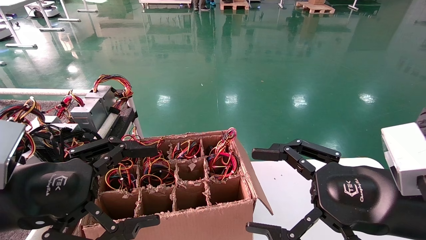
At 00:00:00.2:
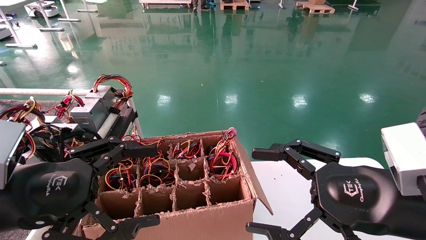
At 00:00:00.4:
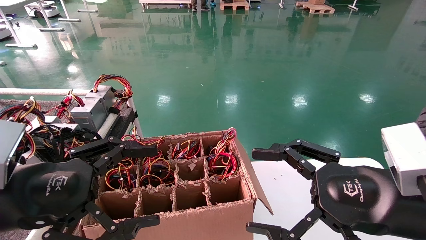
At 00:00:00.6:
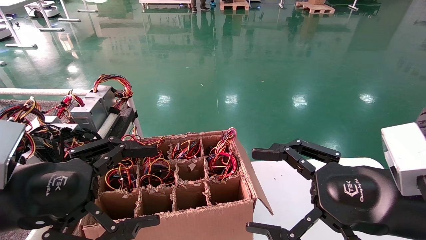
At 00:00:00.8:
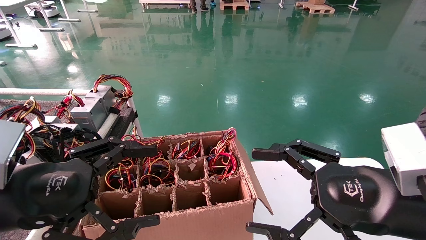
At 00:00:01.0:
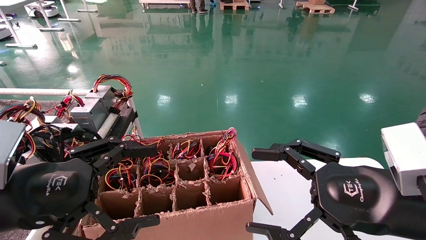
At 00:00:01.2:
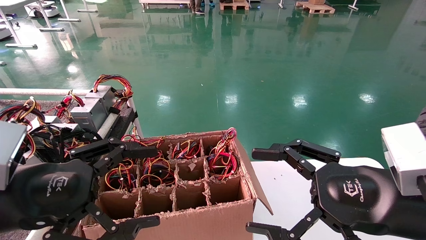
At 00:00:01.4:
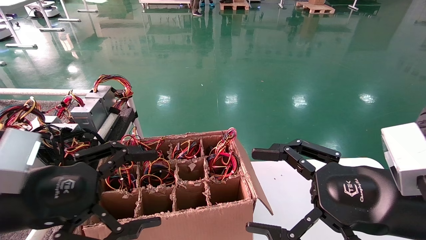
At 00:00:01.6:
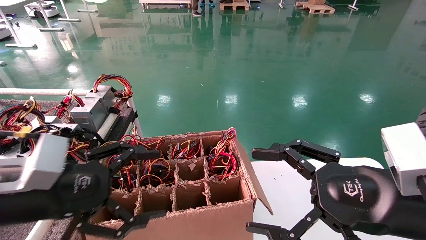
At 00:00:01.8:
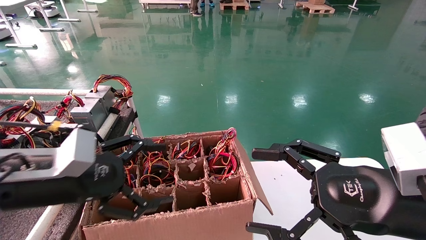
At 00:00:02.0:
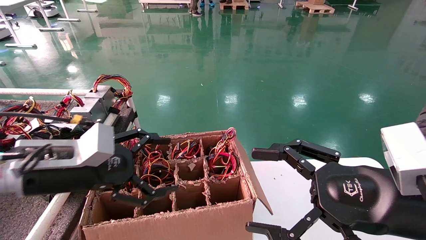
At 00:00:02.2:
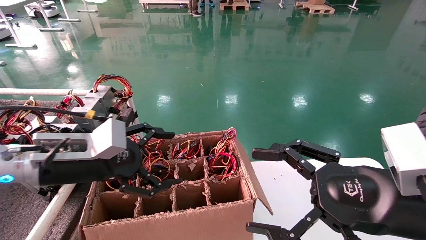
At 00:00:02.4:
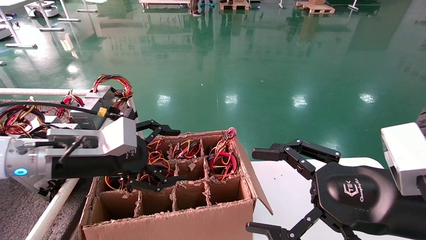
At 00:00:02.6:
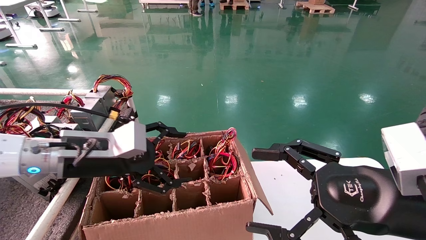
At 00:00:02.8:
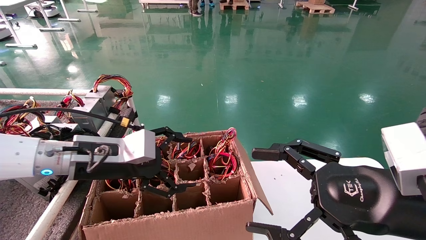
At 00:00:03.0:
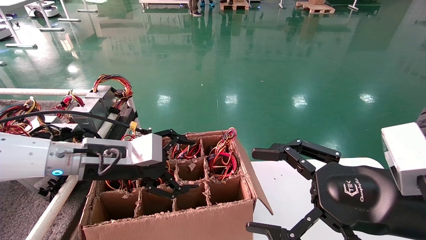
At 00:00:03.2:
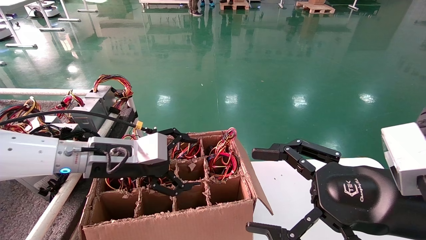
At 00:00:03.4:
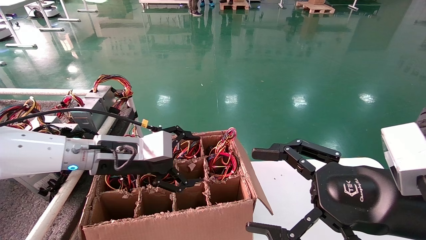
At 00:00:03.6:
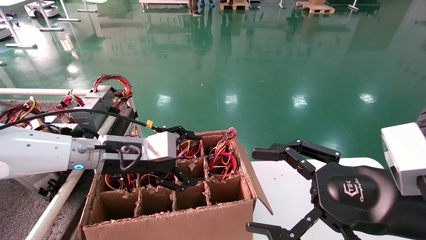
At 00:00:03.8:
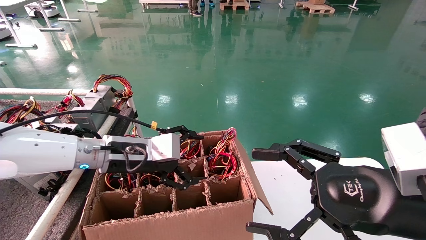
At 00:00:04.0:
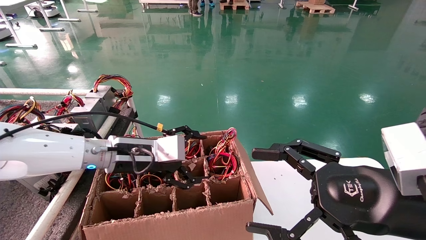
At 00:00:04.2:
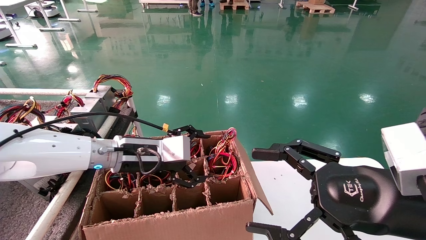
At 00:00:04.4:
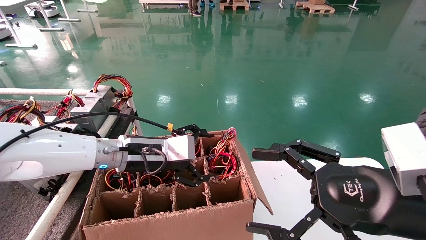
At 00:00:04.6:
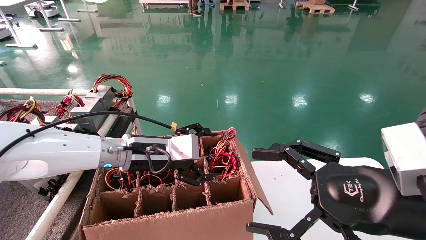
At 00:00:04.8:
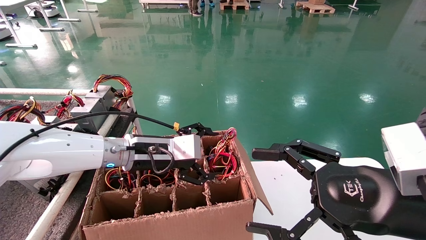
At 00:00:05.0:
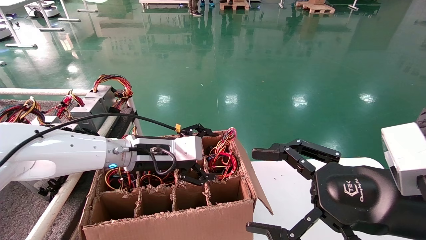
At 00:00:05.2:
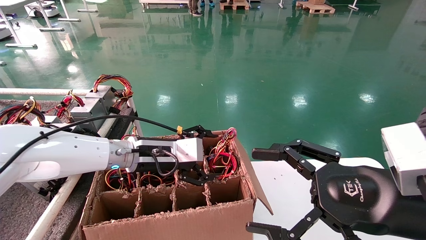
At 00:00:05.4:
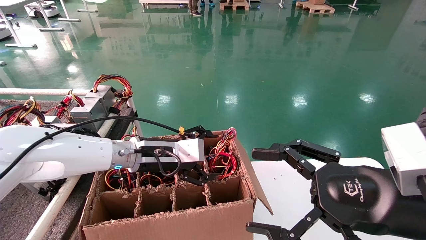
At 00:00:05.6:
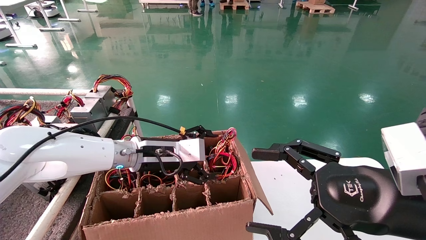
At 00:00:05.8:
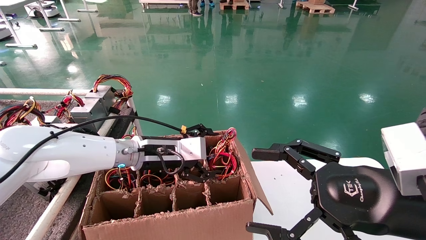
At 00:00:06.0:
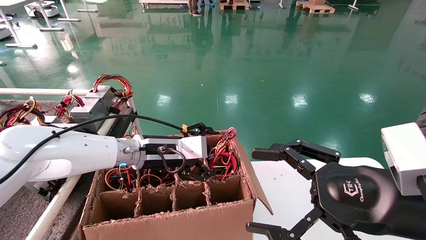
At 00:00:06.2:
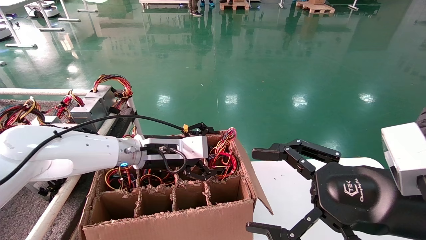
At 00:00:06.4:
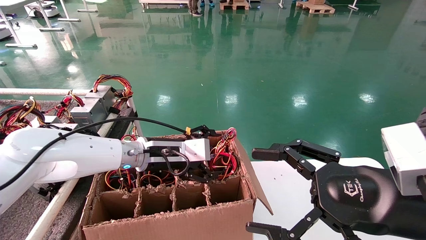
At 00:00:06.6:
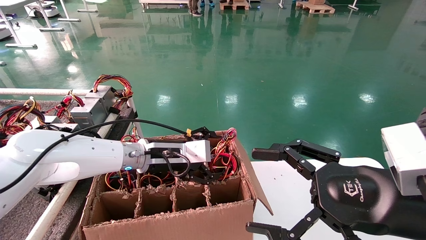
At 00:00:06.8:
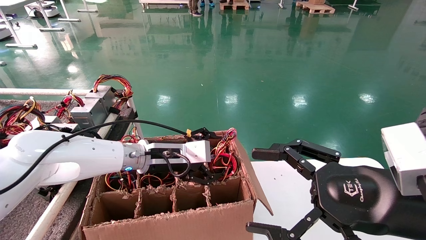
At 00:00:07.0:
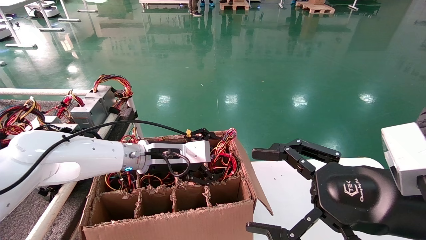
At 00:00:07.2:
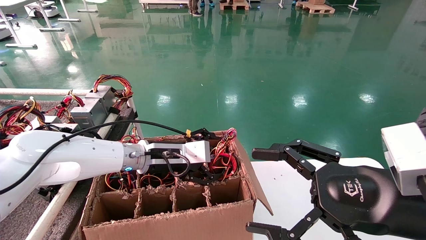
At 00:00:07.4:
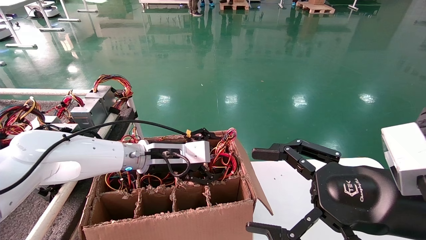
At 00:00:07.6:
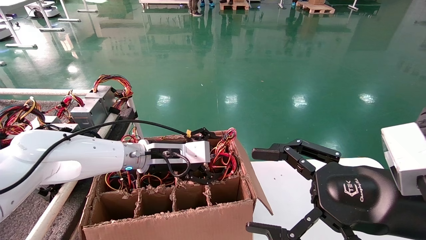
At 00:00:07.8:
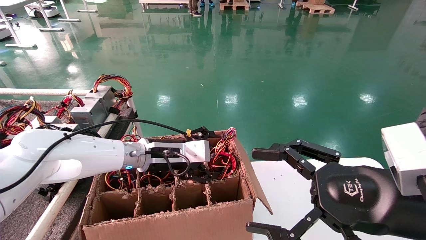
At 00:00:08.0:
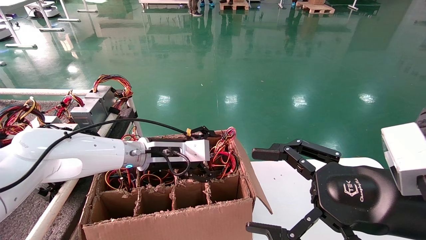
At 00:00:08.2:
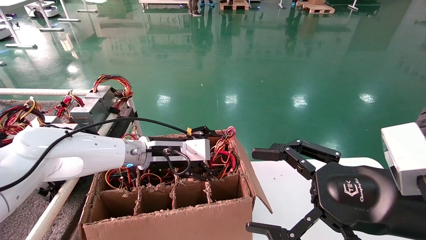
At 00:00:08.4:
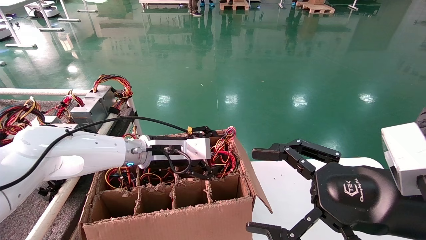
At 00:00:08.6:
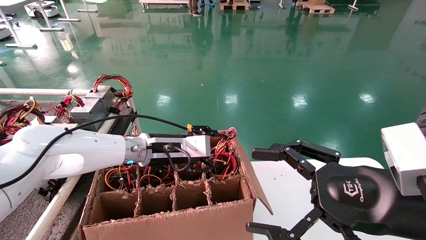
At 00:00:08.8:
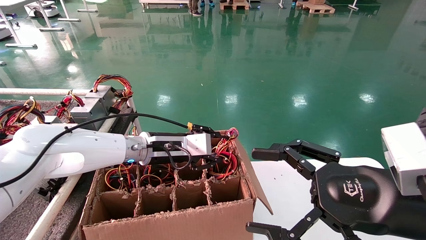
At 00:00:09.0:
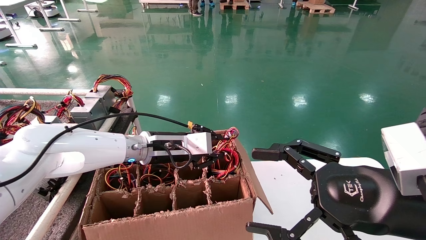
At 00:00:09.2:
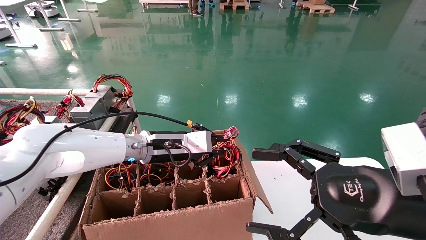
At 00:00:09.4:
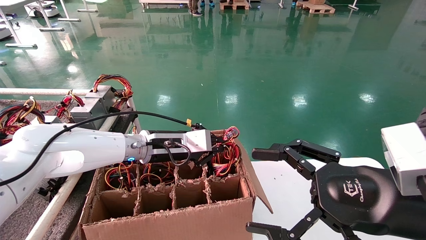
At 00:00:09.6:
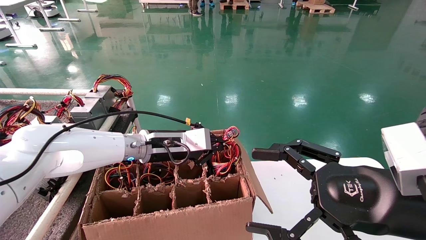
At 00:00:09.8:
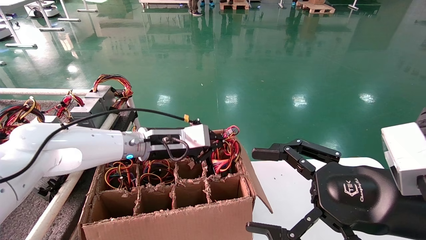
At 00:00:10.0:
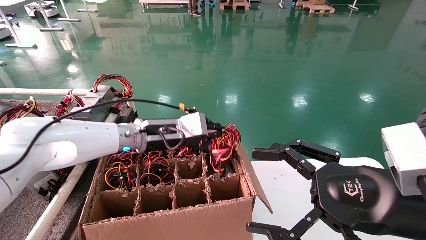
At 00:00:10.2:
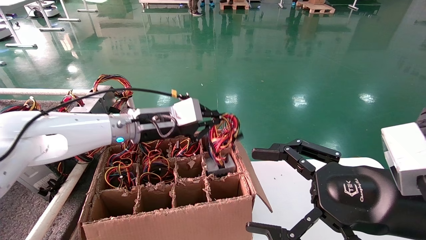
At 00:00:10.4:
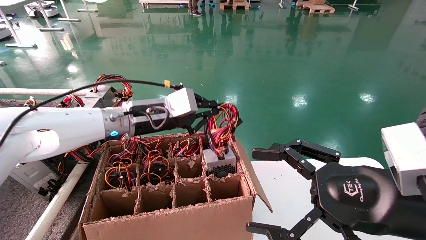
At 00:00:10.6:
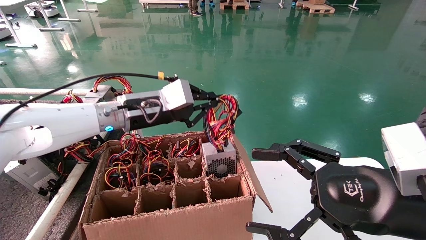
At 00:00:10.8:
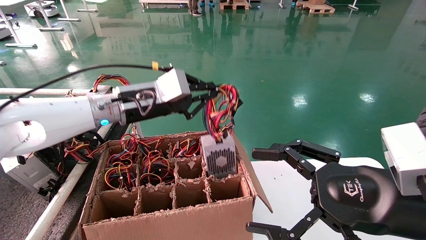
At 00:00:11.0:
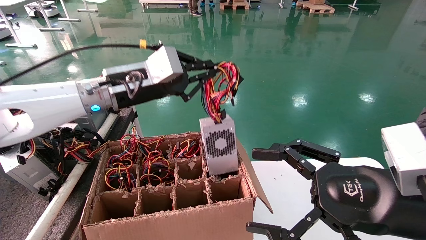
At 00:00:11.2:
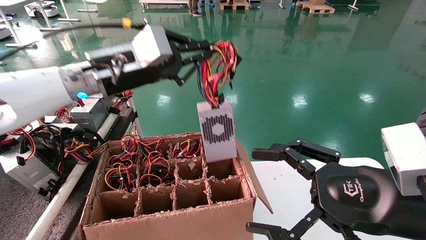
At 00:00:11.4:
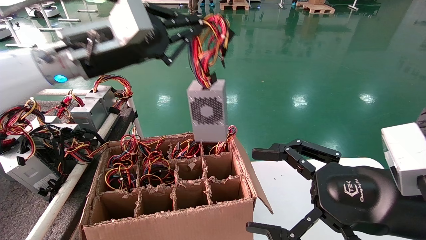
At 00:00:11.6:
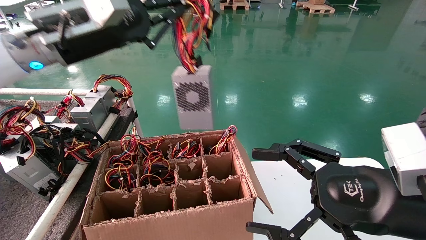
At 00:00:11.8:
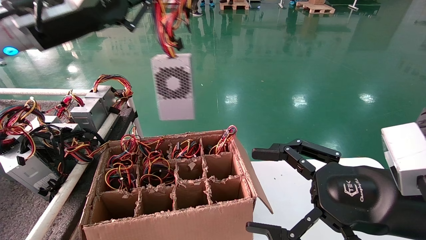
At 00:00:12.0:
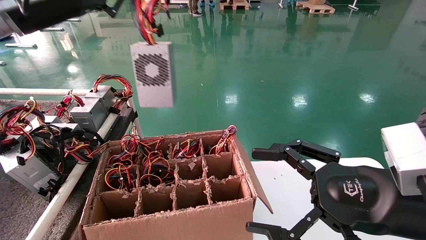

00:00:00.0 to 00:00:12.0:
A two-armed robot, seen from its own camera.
Step, 00:00:01.8 to 00:00:09.4: Grab and lift the power supply from the large box.
00:00:00.0 to 00:00:01.6: The grippers stay close to where they were, moving slightly.
00:00:01.6 to 00:00:03.0: The left gripper moves forward and to the right, roughly 15 cm.
00:00:03.0 to 00:00:04.4: The left gripper shifts some 5 cm to the right.
00:00:04.4 to 00:00:07.6: The grippers make only small movements.
00:00:07.6 to 00:00:09.0: The left gripper closes its fingers.
00:00:09.0 to 00:00:10.4: The left gripper is displaced upward by some 5 cm, and closes its fingers.
00:00:10.4 to 00:00:12.0: The left gripper goes approximately 25 cm upward, to the left and backward.

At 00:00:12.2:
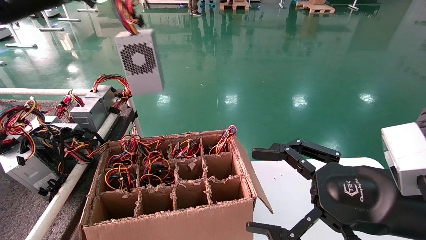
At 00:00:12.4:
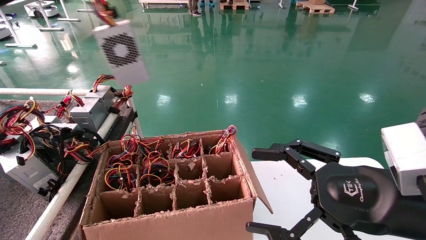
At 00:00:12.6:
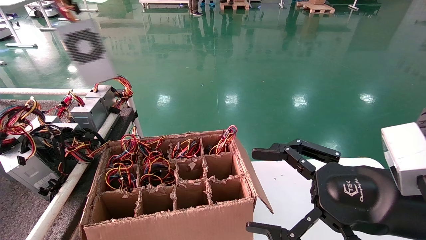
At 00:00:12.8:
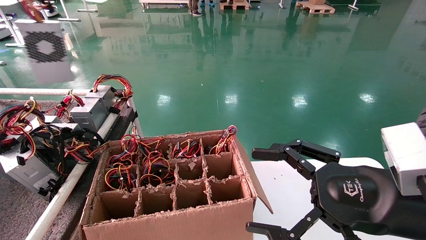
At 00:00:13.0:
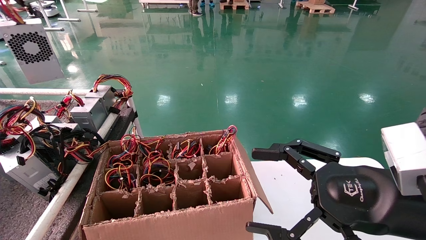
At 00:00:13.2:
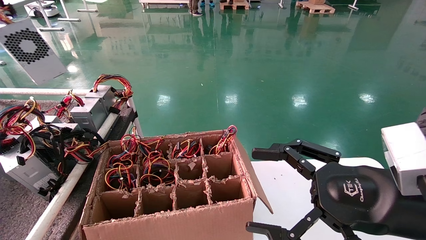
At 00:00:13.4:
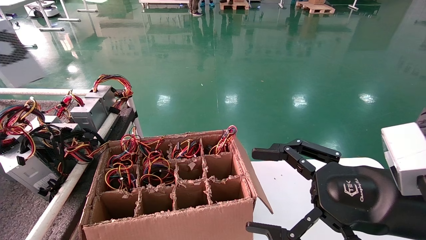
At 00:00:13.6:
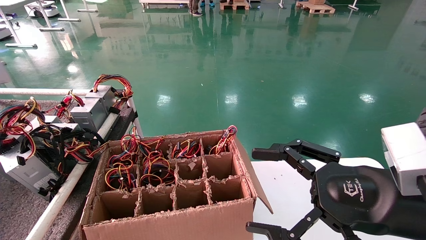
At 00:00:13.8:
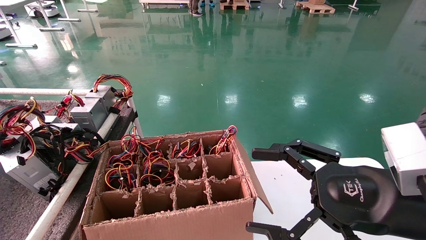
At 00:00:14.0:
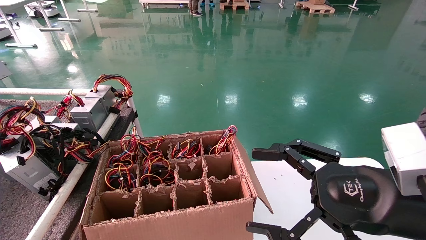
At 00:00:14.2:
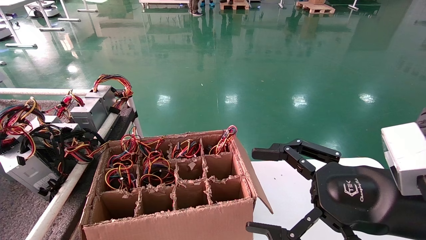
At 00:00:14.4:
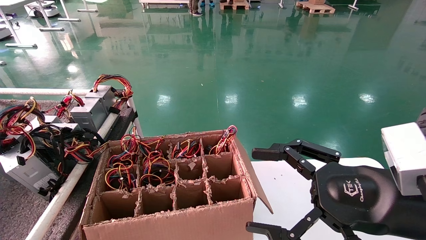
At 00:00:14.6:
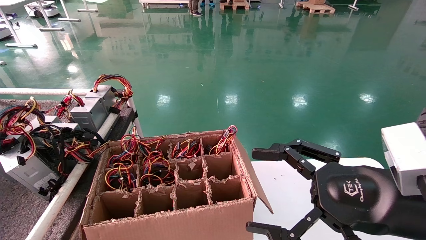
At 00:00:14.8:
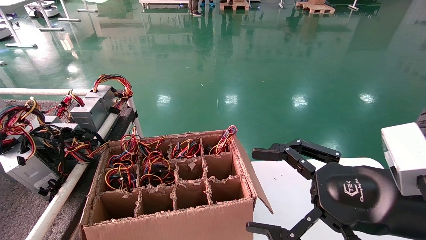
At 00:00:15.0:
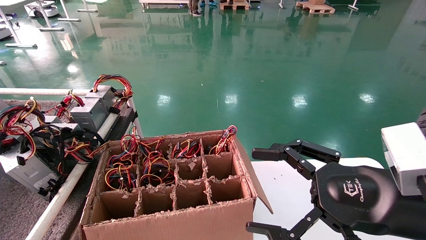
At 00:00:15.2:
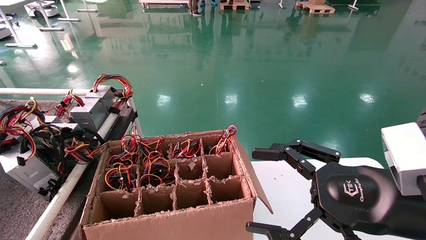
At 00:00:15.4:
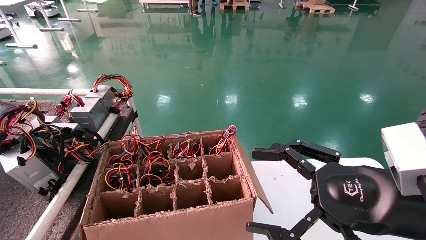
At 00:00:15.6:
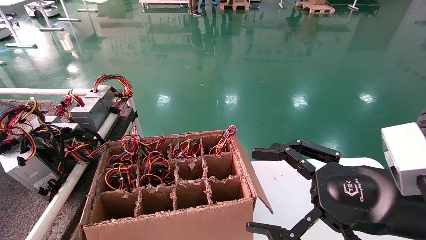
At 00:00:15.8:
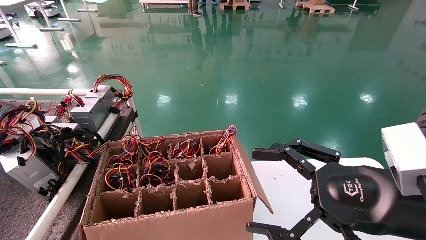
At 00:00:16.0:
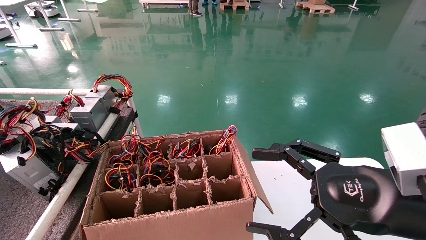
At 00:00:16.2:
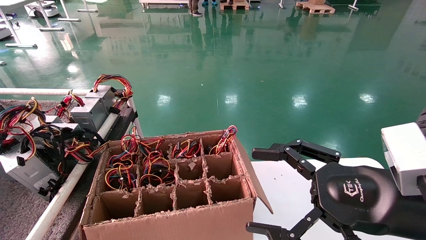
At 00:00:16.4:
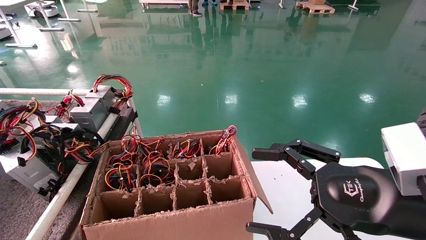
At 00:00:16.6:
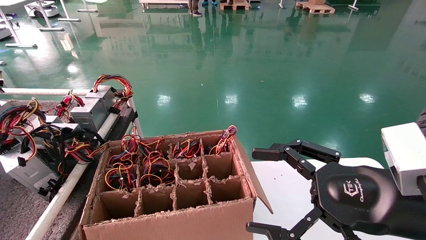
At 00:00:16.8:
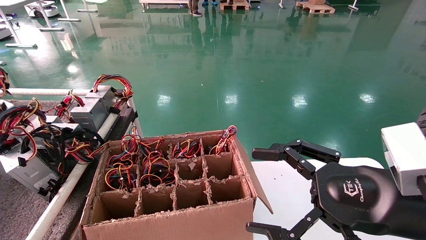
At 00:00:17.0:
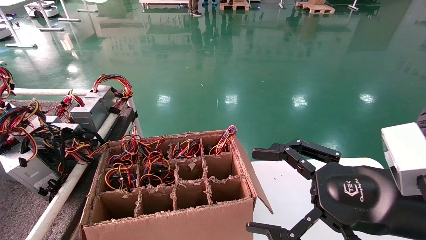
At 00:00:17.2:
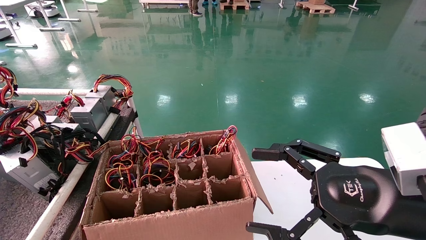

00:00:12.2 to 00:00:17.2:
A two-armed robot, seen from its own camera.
00:00:12.2 to 00:00:13.8: The left gripper shifts roughly 25 cm to the left.
00:00:15.6 to 00:00:17.2: The left gripper moves downward, about 5 cm.
